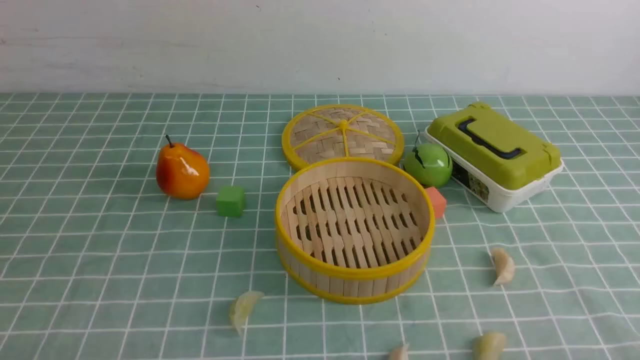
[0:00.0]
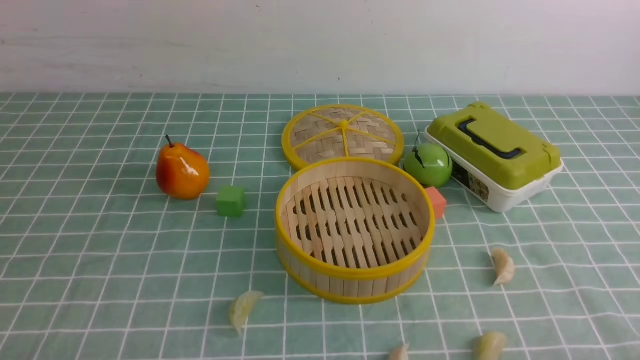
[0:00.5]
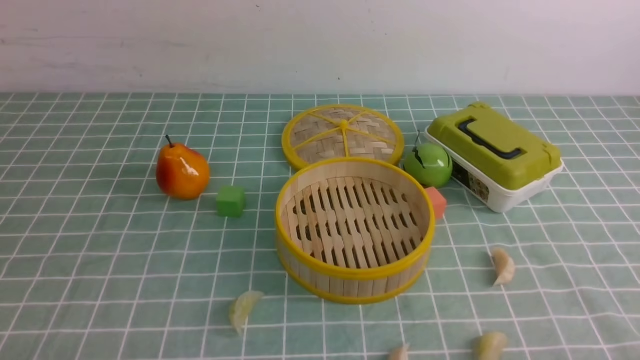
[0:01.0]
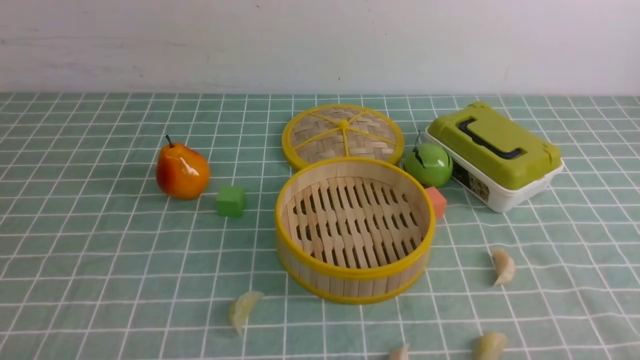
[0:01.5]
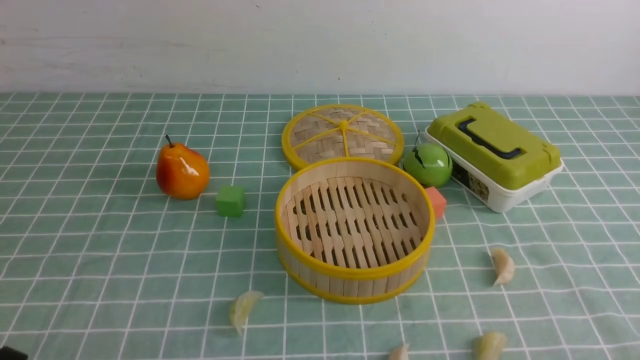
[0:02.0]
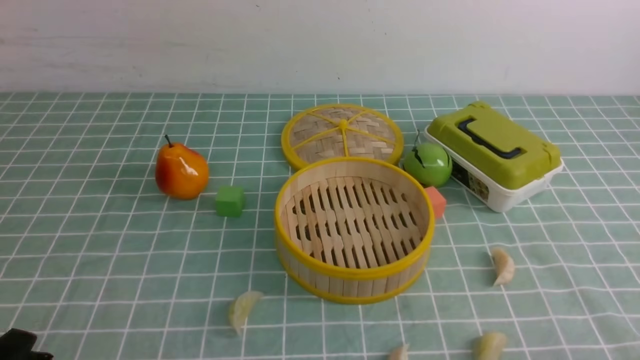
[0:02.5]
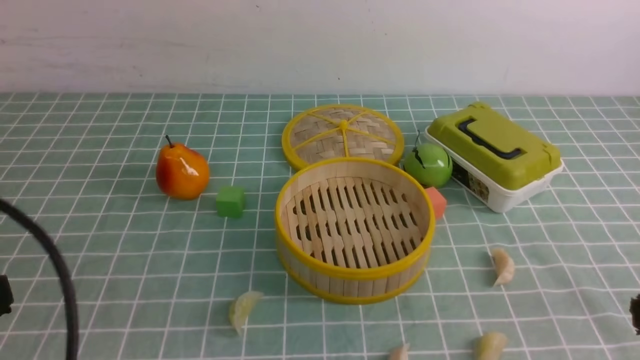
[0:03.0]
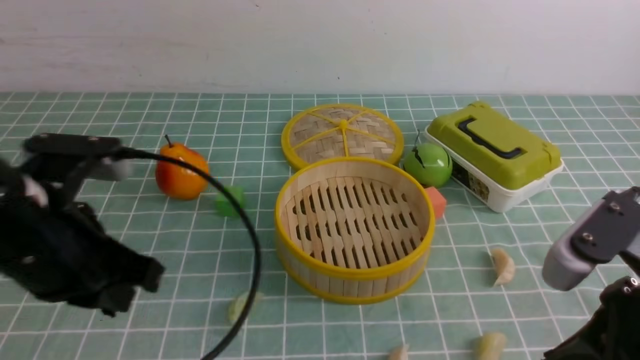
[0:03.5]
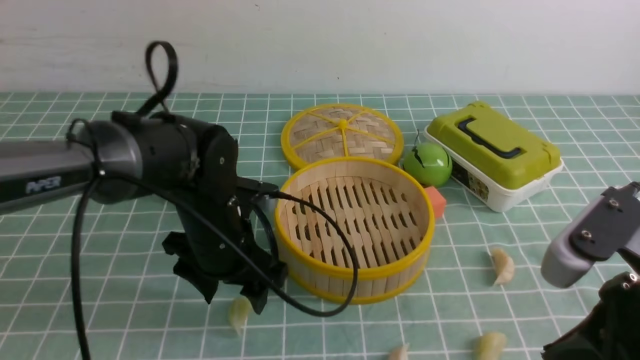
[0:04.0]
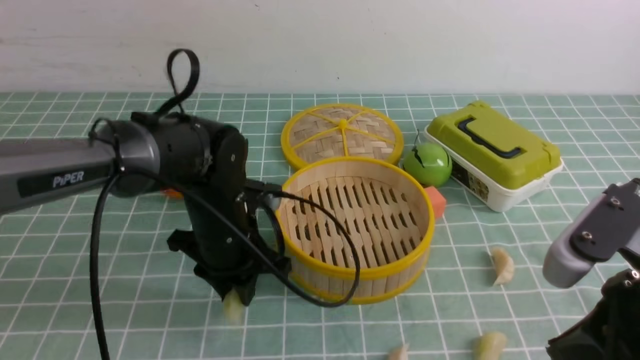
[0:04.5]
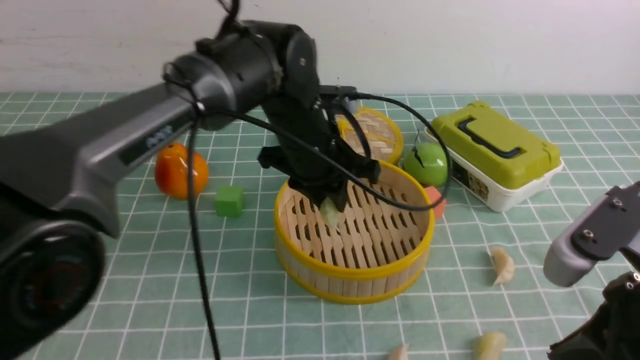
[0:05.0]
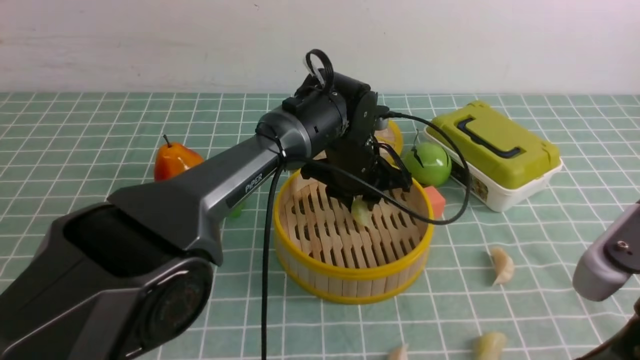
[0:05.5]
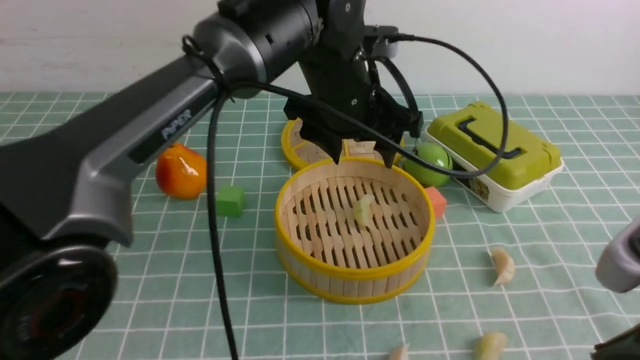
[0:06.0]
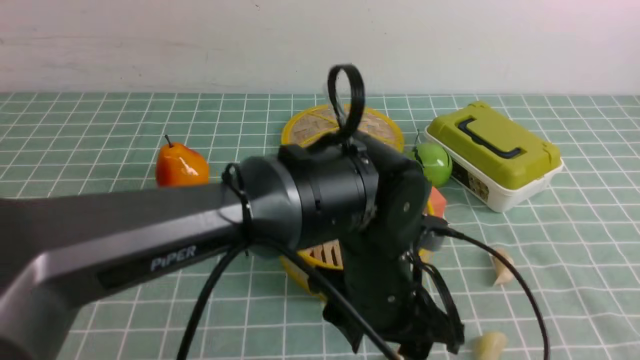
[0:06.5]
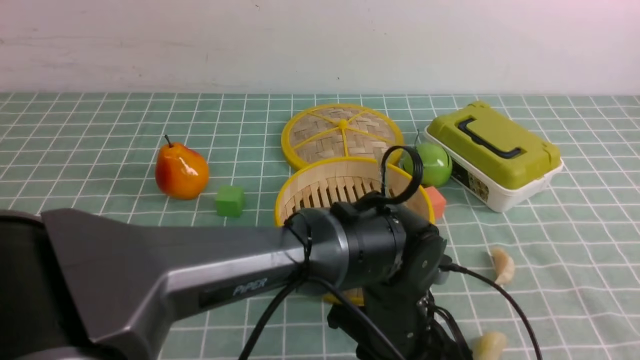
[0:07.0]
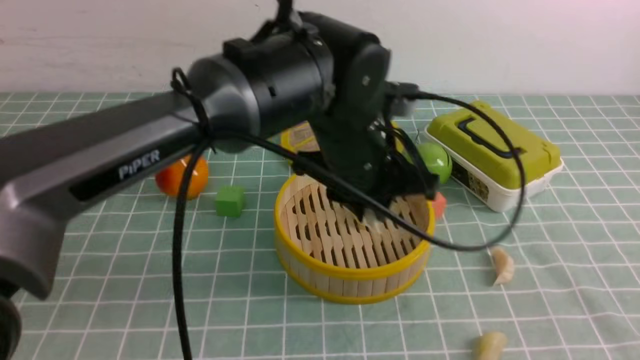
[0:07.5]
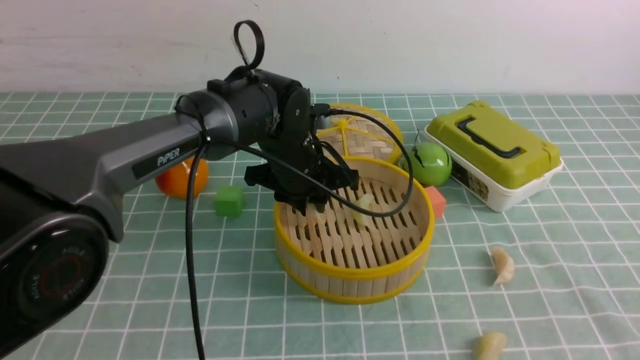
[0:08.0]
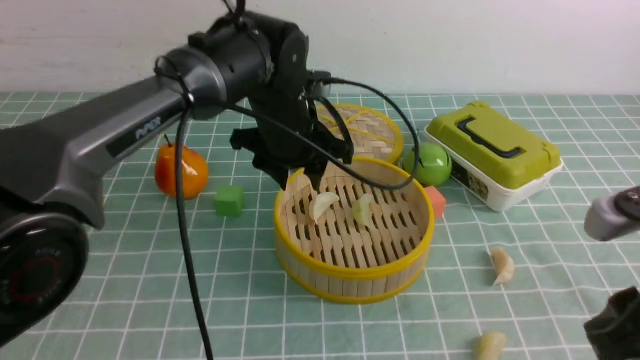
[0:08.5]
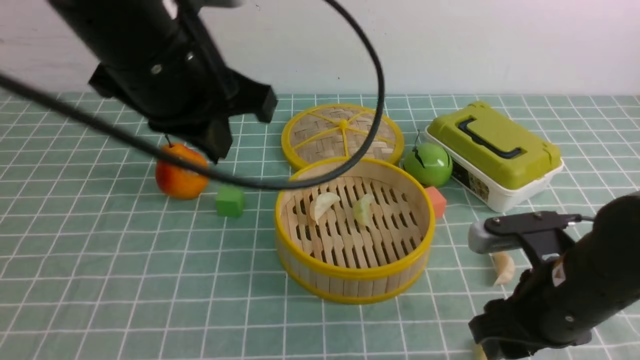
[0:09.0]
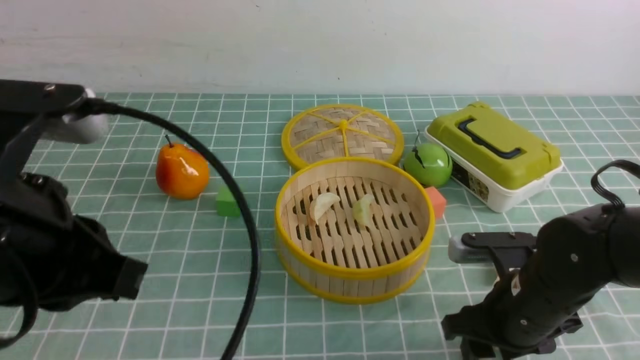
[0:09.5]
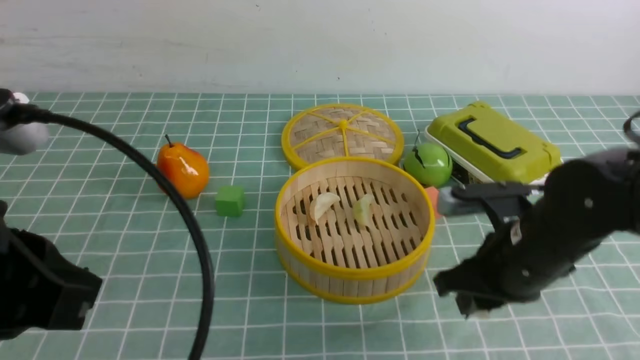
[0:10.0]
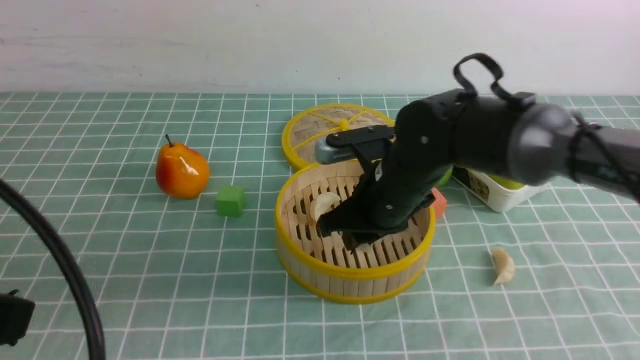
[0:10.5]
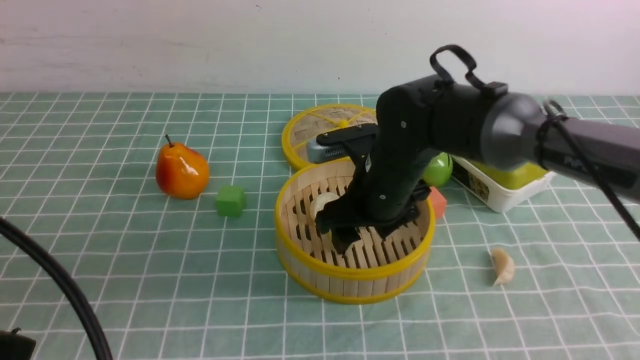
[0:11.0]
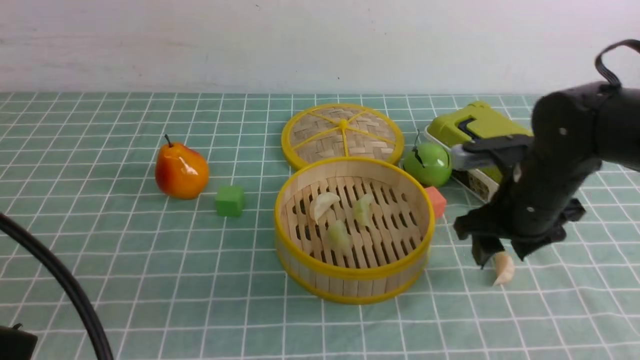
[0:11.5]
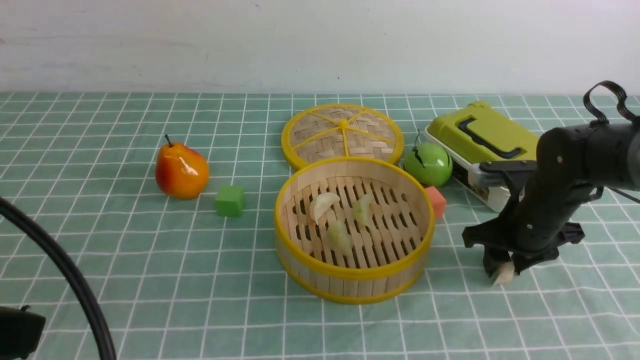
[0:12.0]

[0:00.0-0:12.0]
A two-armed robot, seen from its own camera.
Task of the whole recording: put the dumplings into the steamer on the table with the blue tablecloth.
Step, 0:00.0 to 0:04.5: use the left arm to grab a dumpling.
Step, 0:05.0 to 0:05.5: use the left arm to put the dumpling into the steamer.
Step, 0:06.0 to 0:07.0: use the left arm to grab a dumpling.
Step, 0:07.5 to 0:08.5: use the left arm to put the dumpling into the steamer.
Step, 0:09.0 to 0:09.5: use the right arm to grab a dumpling.
Step, 0:10.0 to 0:10.5: use the right arm to put the dumpling into the steamer.
0:02.0 to 0:04.0: The left gripper is displaced forward and to the right by about 30 cm, and opens up. Meanwhile the right gripper moves upward, forward and to the left, about 20 cm, and closes.
0:04.0 to 0:06.0: The left gripper moves to the right and upward, some 20 cm, and closes and opens again.
0:06.0 to 0:08.0: The left gripper moves downward and to the left, some 10 cm, reaches about 10 cm backward, then returns, and closes its fingers.
0:08.0 to 0:10.0: The right gripper travels forward, downward and to the left by approximately 25 cm, and opens and closes again. Meanwhile the left gripper goes roughly 40 cm backward, to the left and upward, and closes up.
0:10.0 to 0:12.0: The right gripper is displaced forward and to the right by approximately 10 cm, and opens, then closes once more.

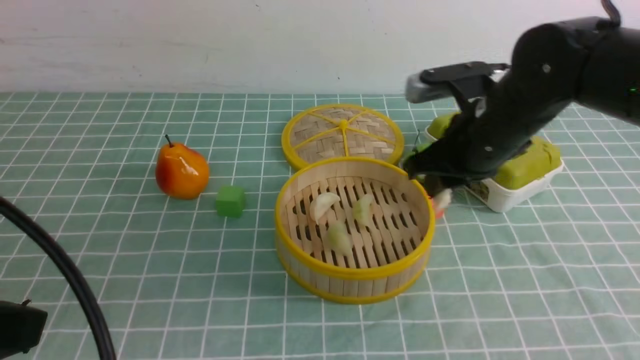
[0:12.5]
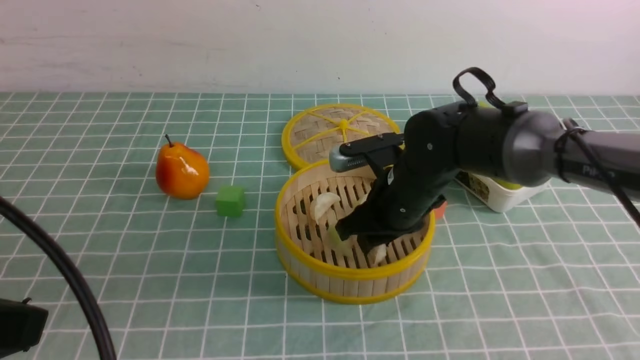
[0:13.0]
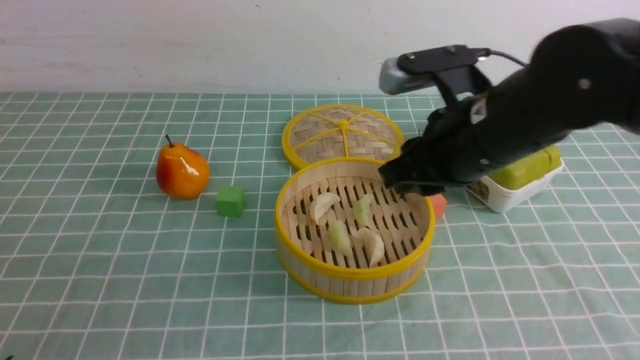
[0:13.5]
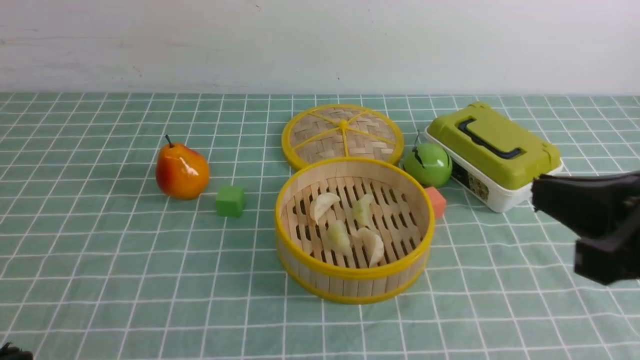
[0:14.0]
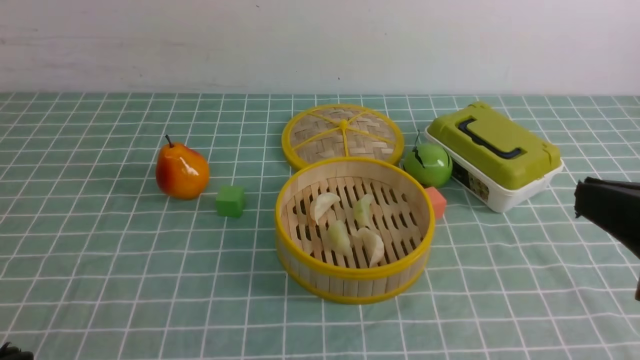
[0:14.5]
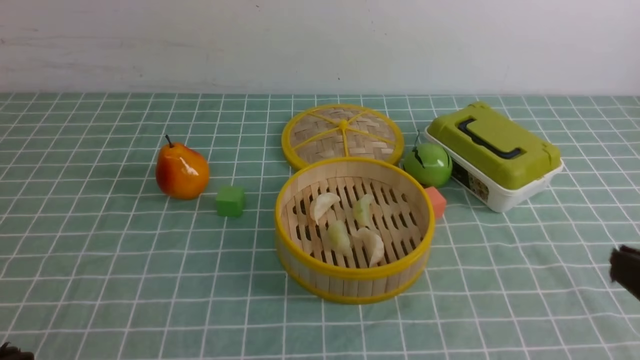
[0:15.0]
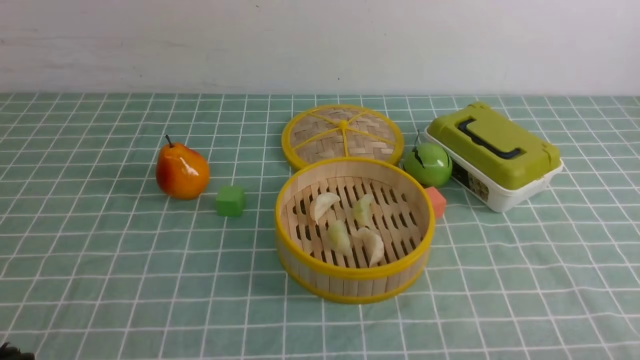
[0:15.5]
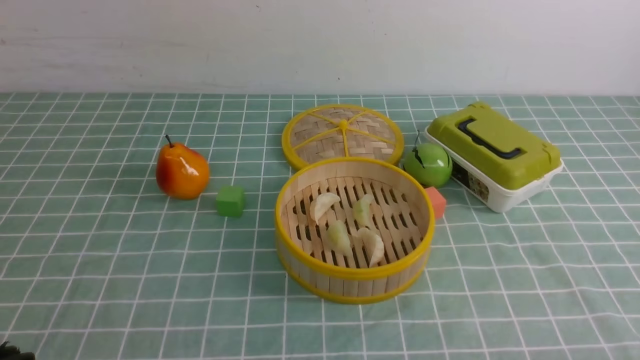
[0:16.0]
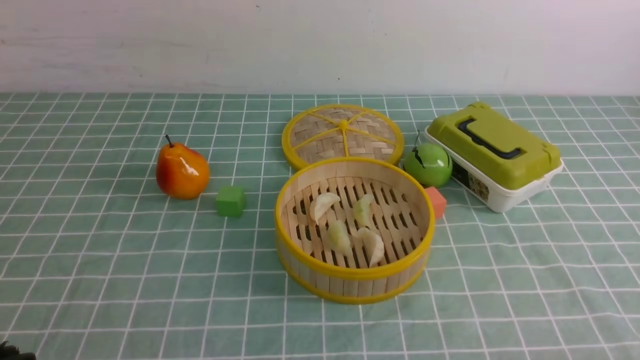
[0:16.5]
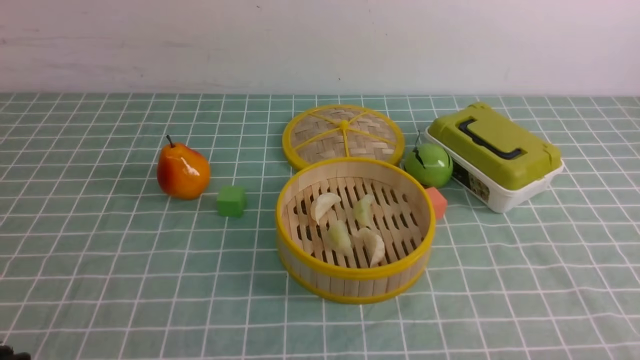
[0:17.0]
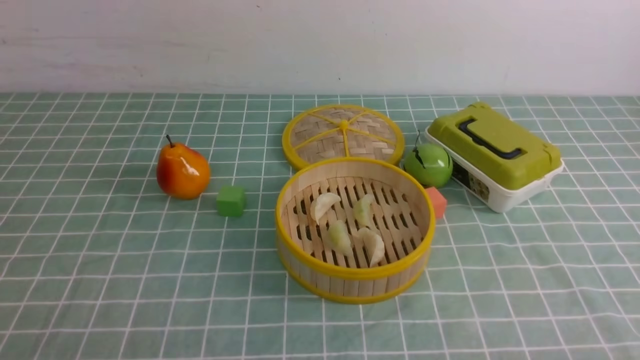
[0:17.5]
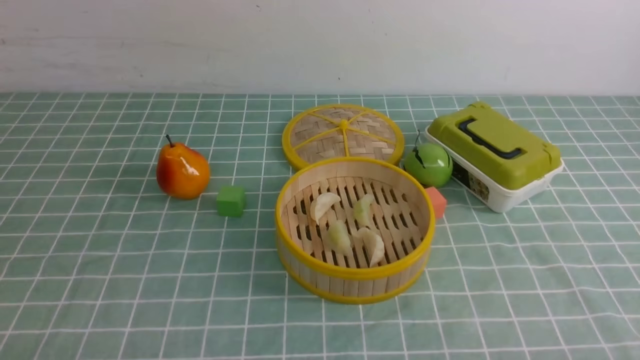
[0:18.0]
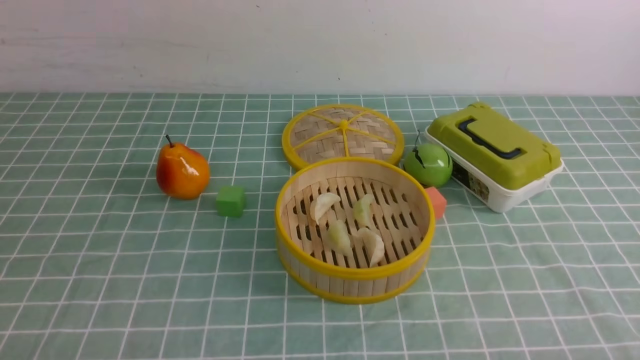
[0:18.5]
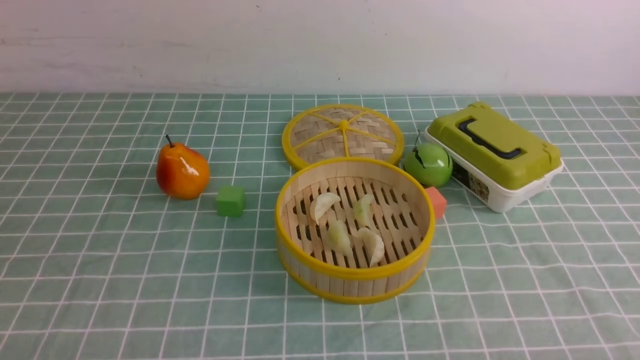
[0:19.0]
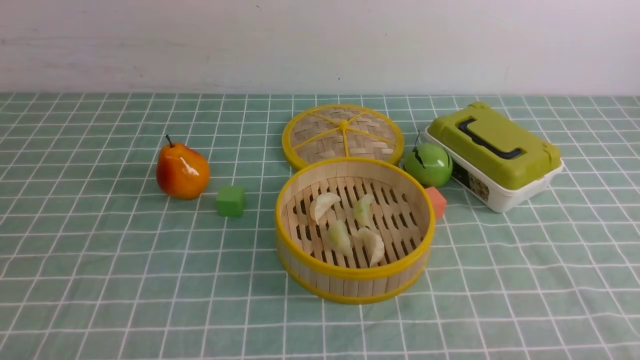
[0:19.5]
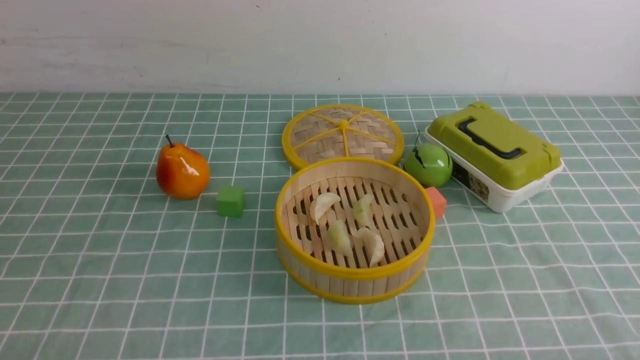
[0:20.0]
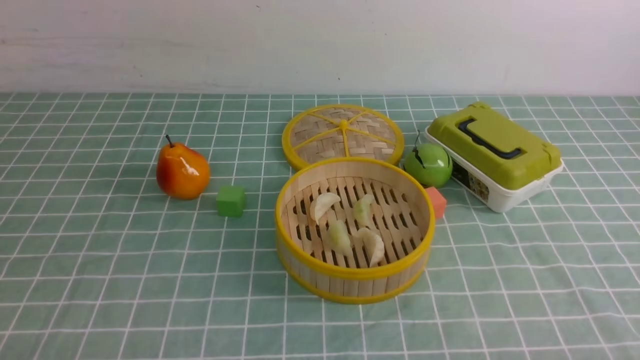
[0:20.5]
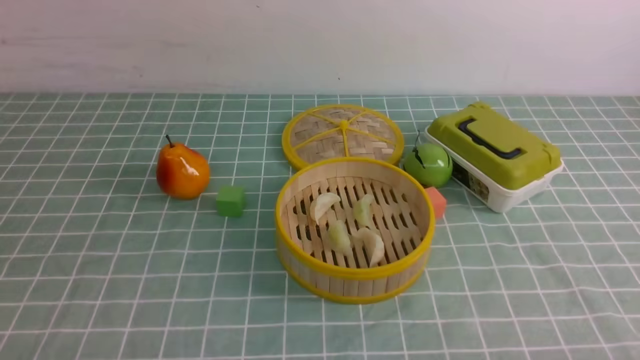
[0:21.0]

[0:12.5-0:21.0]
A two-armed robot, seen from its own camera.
Task of the whole recording: put the dumplings into the steamer on the table with the blue tablecloth.
Step, 0:12.5 to 0:13.0: use the right arm to put the dumpling into the steamer.
0:12.5 to 0:14.5: The left gripper goes approximately 5 cm downward. Meanwhile the right gripper goes some 25 cm backward, and closes its fingers.
0:14.5 to 0:16.5: The right gripper heads downward and to the right, covering roughly 20 cm.
0:19.0 to 0:21.0: Both grippers stay about where they are.
